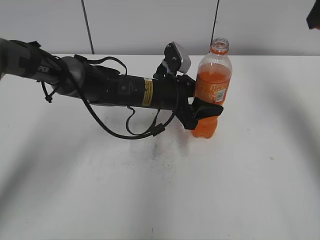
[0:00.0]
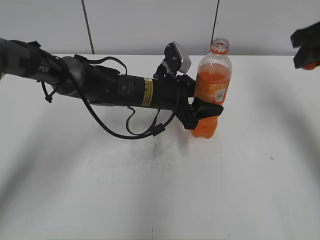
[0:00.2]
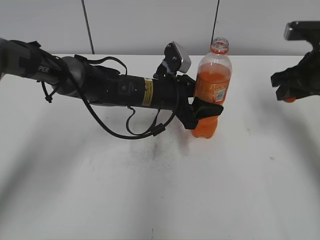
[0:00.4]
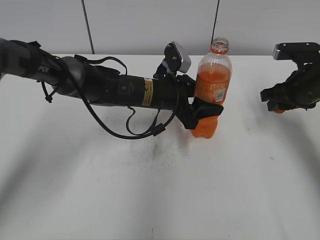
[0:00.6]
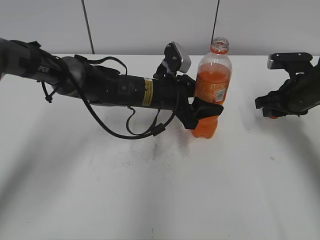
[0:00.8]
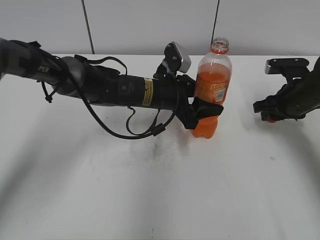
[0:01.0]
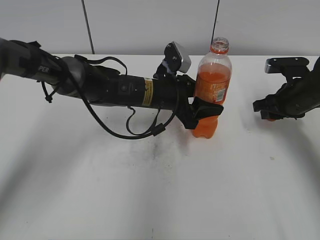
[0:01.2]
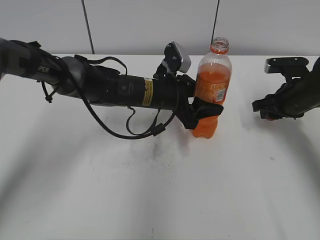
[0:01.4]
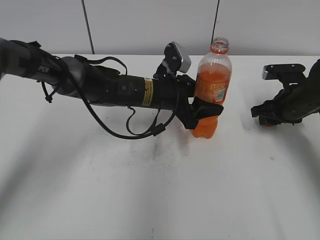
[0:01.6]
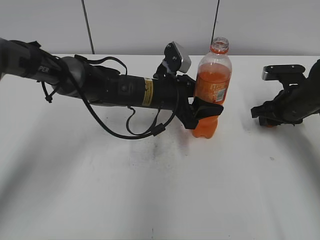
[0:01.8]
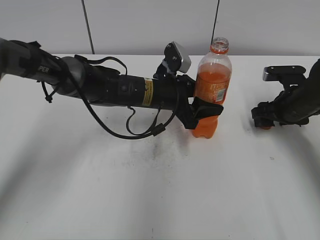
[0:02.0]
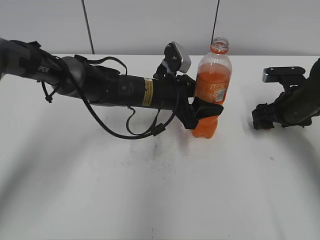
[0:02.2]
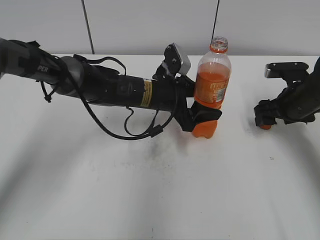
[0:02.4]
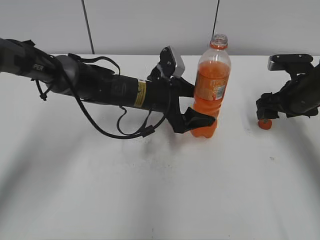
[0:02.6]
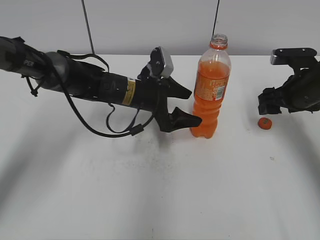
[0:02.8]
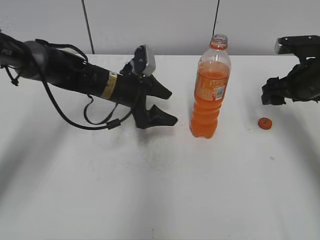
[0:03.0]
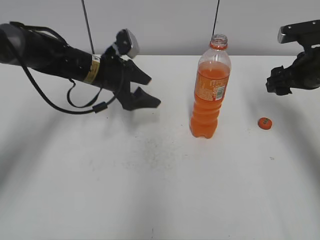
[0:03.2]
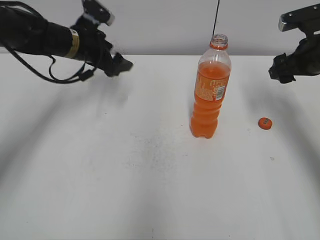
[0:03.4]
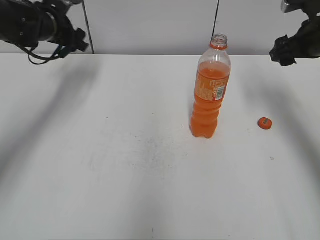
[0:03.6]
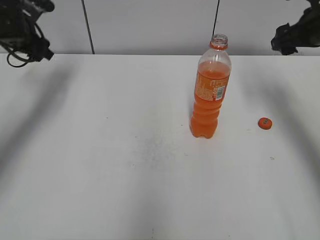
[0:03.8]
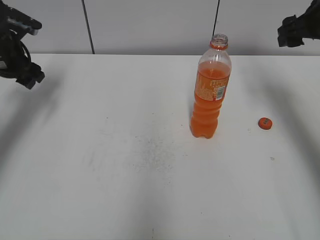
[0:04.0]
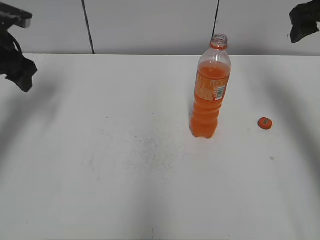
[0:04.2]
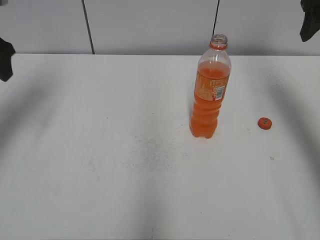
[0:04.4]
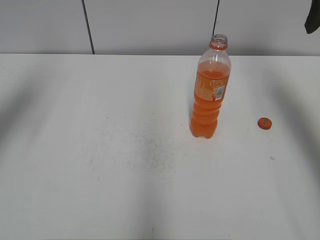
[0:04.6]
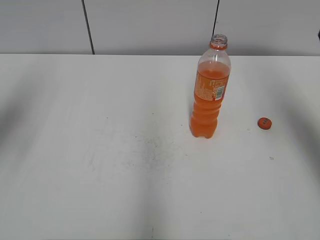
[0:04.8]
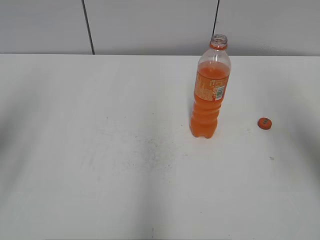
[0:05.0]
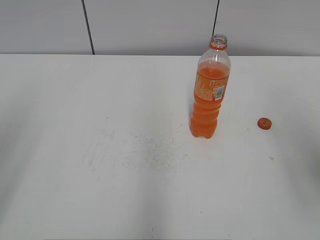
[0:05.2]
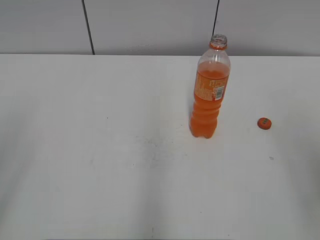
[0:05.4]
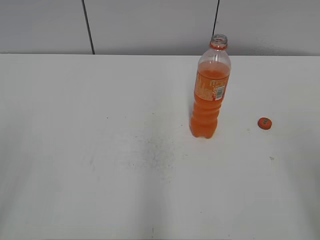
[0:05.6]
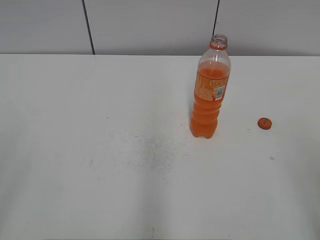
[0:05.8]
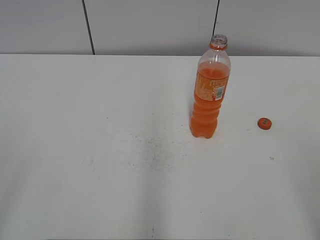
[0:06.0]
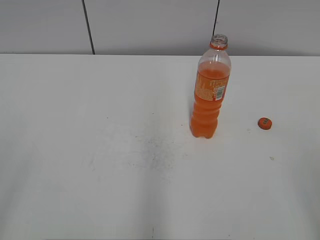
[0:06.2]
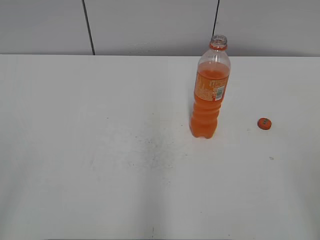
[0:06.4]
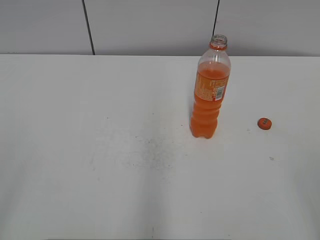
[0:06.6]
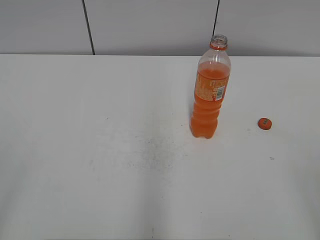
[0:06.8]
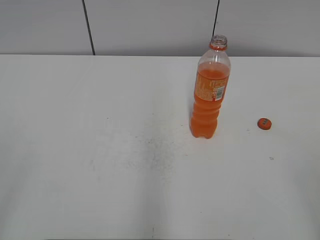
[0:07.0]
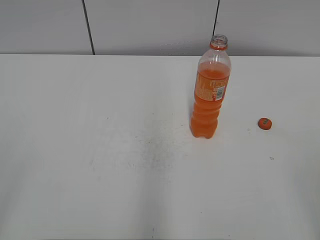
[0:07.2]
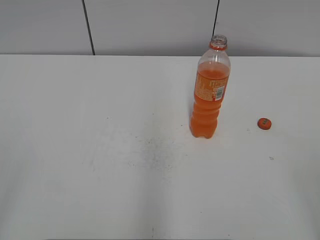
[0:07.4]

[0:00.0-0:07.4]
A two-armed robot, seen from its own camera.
Step, 0:00.0 to 0:02.0: Place the bottle cap on the right.
0:00.0 to 0:01.4: The right gripper moves downward, approximately 25 cm.
0:01.4 to 0:03.0: The right gripper opens. Meanwhile the left gripper shifts about 5 cm to the left, and opens its fingers.
0:03.0 to 0:04.4: The left gripper travels to the left and upward by about 30 cm. Meanwhile the right gripper travels upward by approximately 15 cm.
0:04.4 to 0:06.0: The grippers both shift backward by roughly 35 cm.

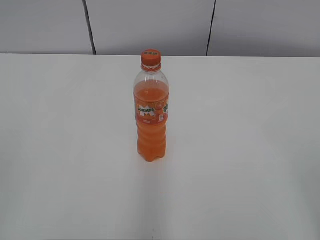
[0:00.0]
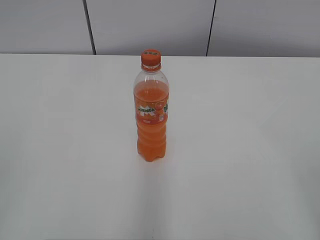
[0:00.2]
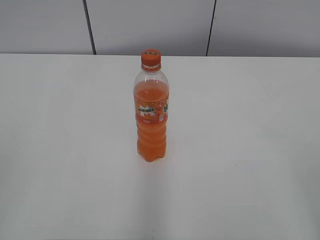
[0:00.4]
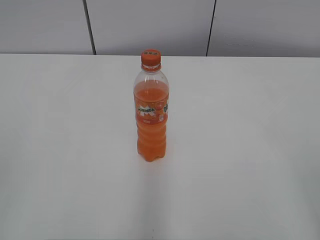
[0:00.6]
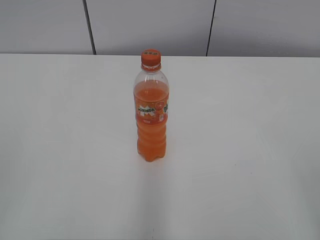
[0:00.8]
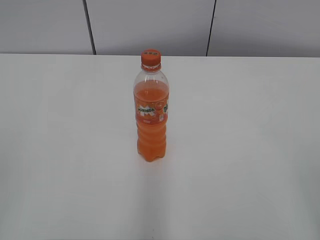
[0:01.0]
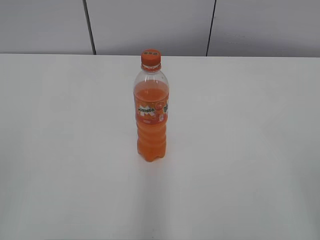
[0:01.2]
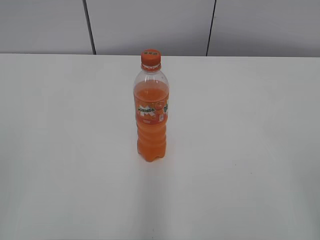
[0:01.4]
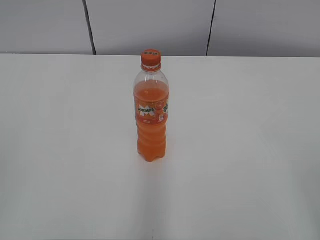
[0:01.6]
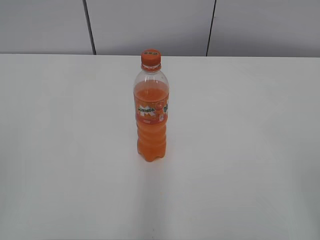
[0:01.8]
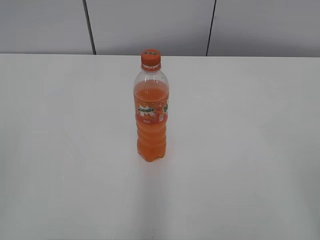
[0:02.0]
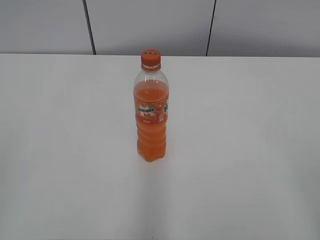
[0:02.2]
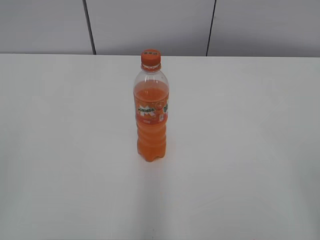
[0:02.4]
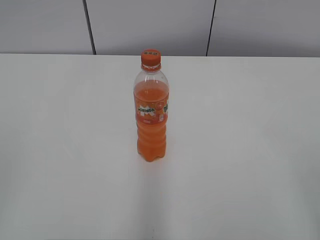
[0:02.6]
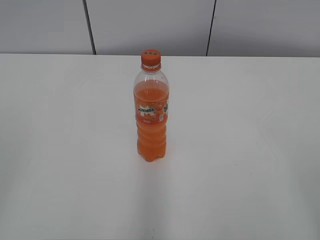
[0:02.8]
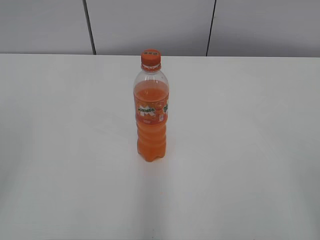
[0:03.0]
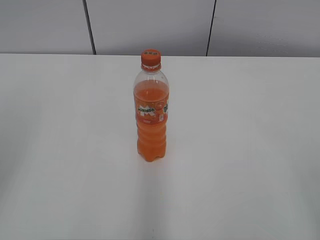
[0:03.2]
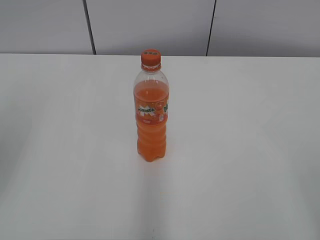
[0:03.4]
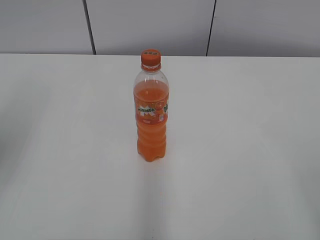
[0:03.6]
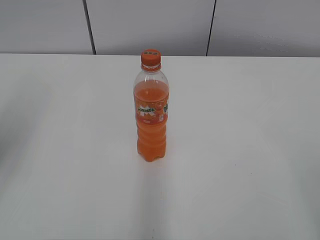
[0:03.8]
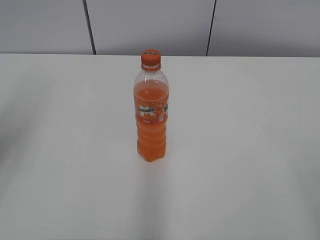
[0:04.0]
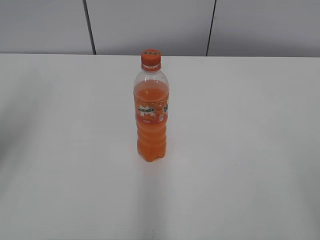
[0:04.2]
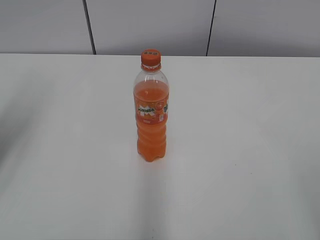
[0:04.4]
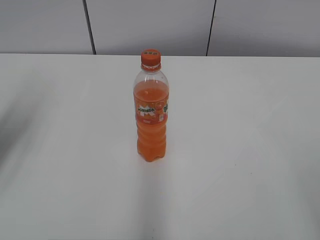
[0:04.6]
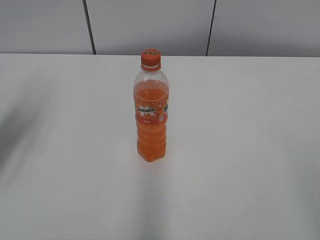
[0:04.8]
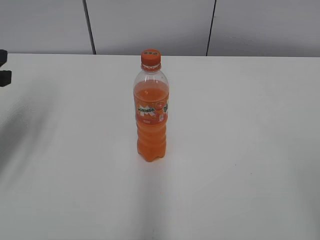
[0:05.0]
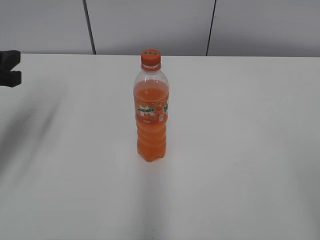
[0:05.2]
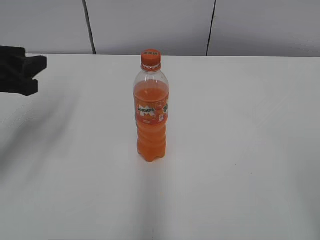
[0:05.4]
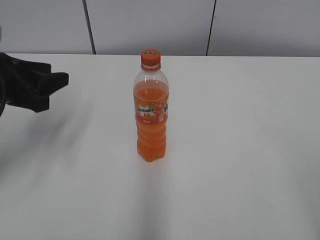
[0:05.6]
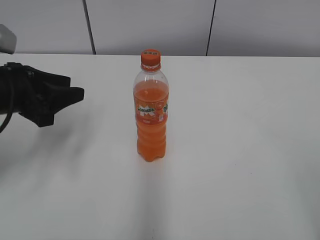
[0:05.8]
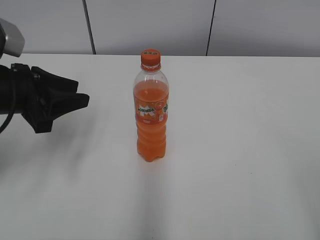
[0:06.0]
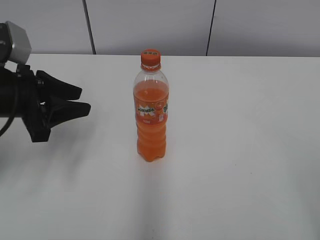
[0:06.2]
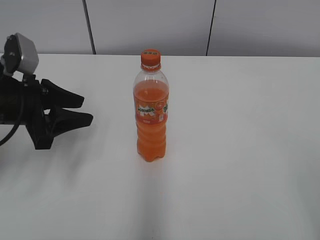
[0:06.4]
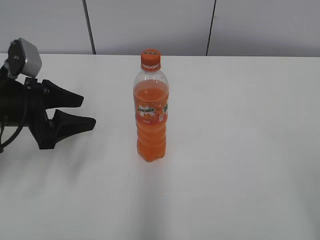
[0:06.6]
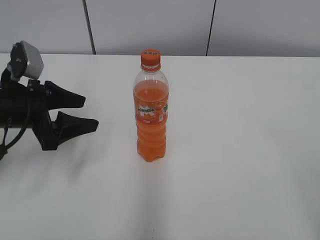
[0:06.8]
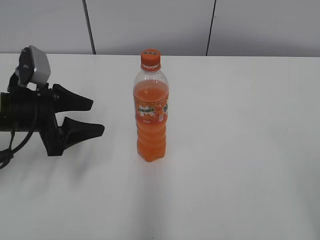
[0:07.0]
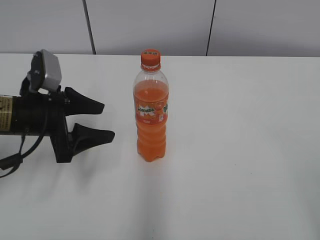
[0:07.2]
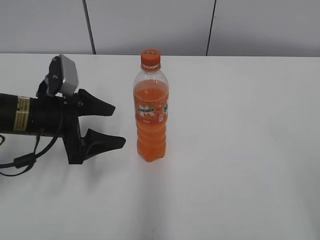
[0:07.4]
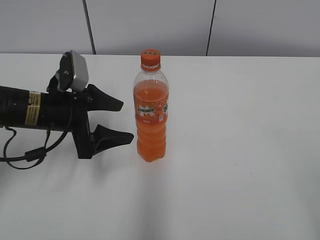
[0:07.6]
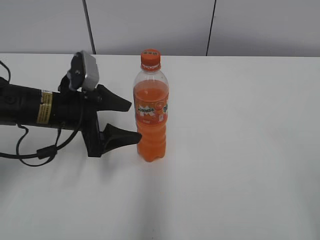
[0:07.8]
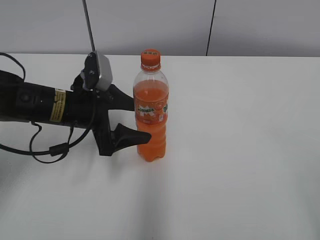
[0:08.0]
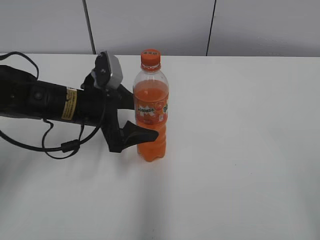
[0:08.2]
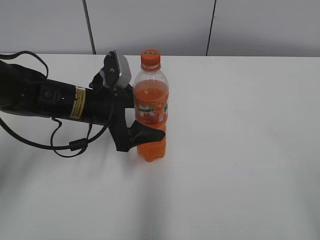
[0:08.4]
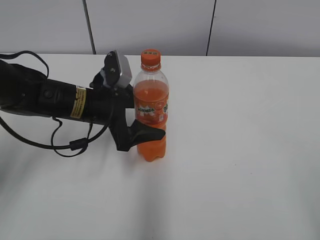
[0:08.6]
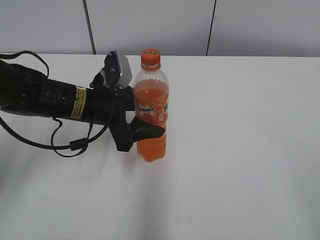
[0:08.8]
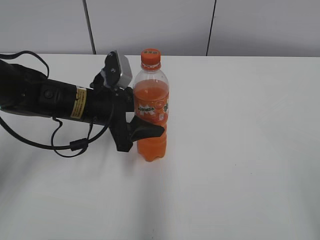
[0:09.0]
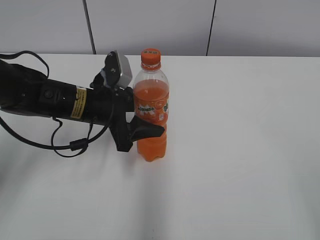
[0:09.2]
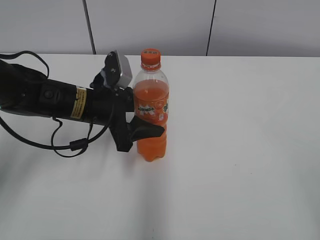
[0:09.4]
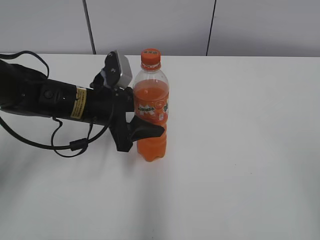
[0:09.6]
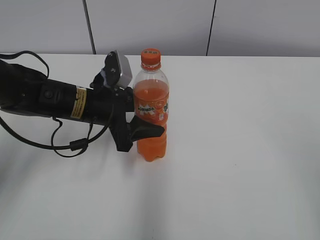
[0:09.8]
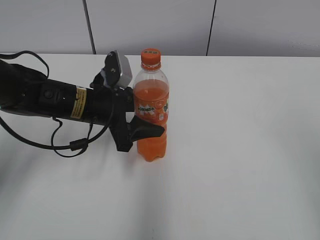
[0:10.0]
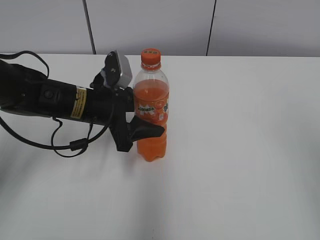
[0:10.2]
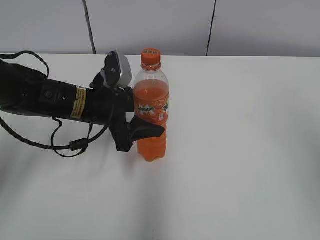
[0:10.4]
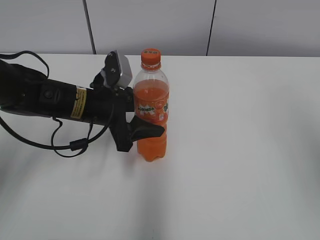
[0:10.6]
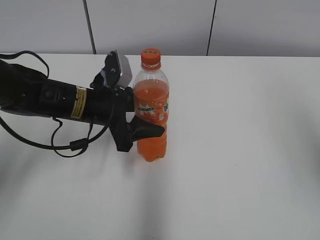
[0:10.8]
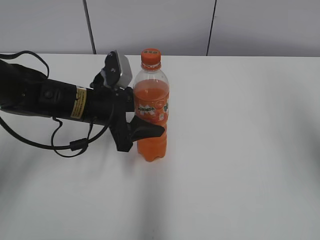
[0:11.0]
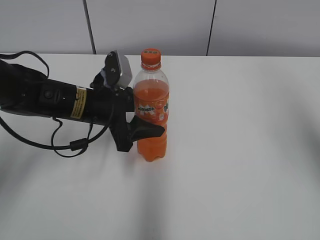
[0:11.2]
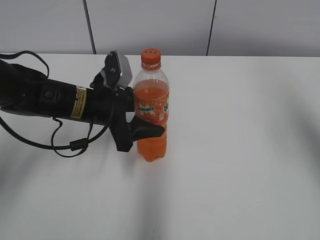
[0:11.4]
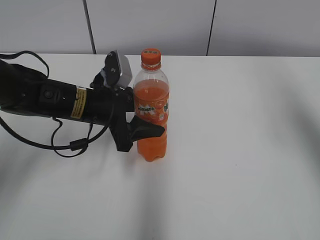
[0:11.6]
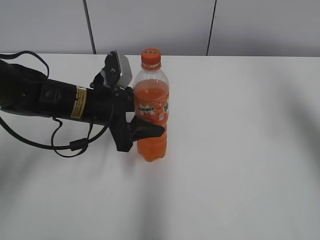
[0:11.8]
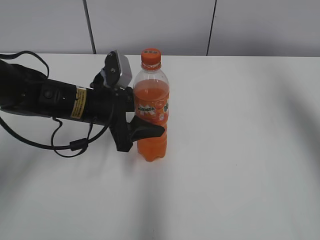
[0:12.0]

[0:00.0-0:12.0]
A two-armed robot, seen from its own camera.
Step, 0:00.0 to 0:09.0: Grab the Mirinda with the left hand.
0:03.0 to 0:04.4: The left gripper moves forward, about 15 cm.
0:04.4 to 0:06.0: The left gripper heads downward, to the right and forward, covering some 15 cm.
0:06.0 to 0:07.6: The left gripper is displaced to the right and downward by roughly 10 cm, and opens.
0:07.6 to 0:09.0: The left gripper is displaced to the right by roughly 5 cm, and closes up.
0:10.4 to 0:12.0: The right gripper moves forward, roughly 20 cm.

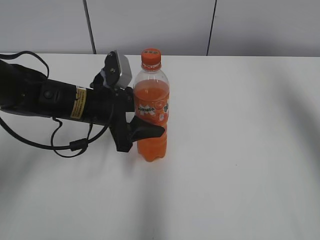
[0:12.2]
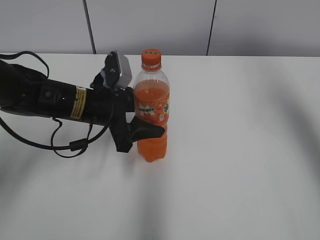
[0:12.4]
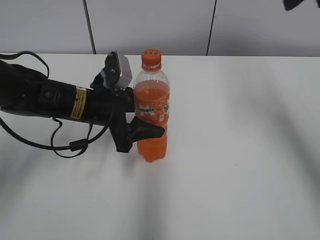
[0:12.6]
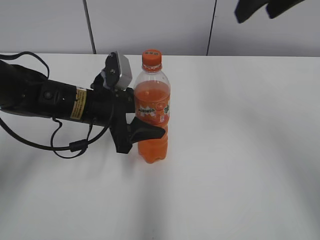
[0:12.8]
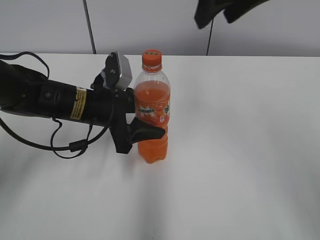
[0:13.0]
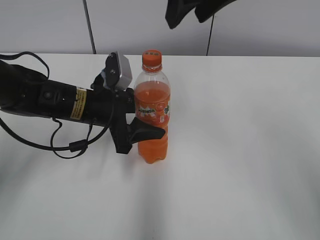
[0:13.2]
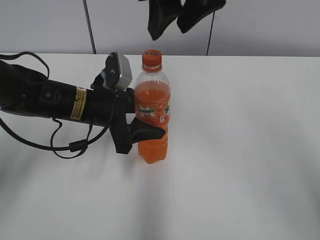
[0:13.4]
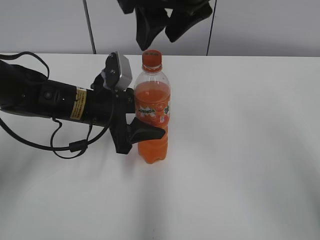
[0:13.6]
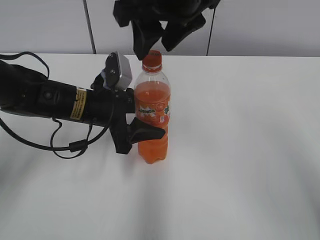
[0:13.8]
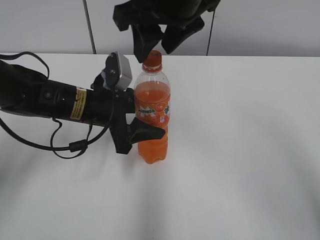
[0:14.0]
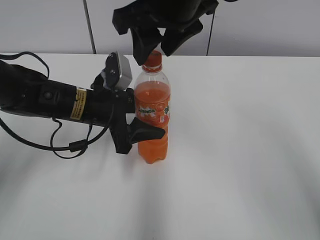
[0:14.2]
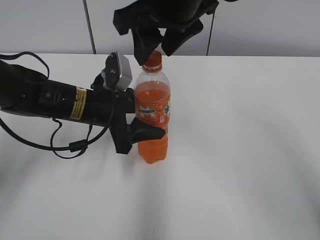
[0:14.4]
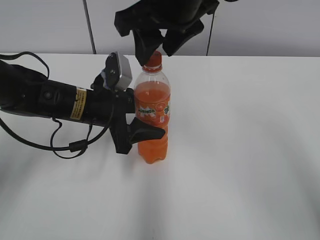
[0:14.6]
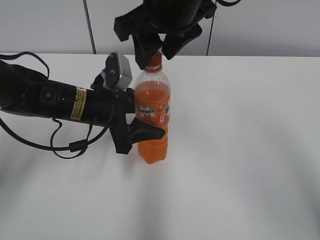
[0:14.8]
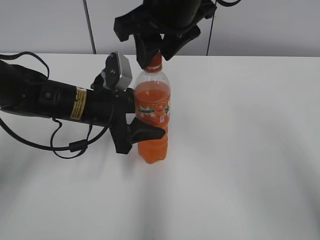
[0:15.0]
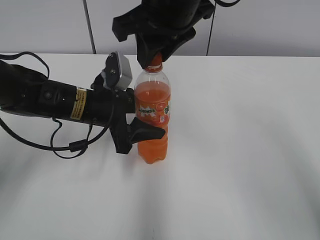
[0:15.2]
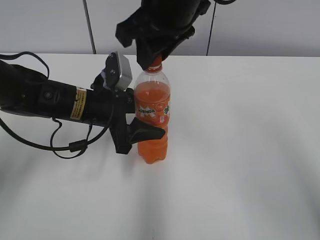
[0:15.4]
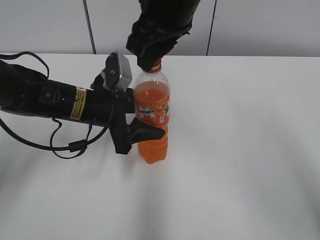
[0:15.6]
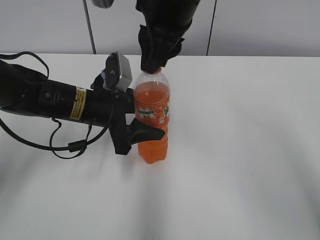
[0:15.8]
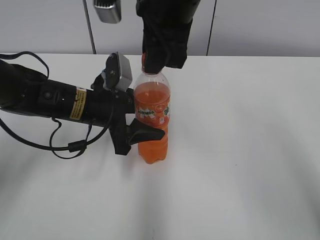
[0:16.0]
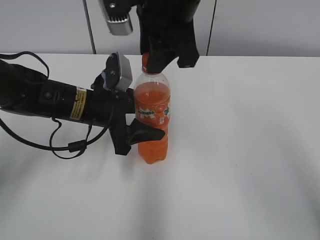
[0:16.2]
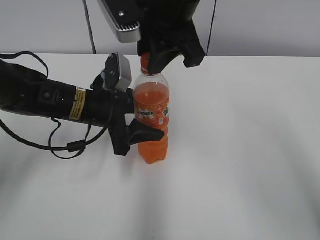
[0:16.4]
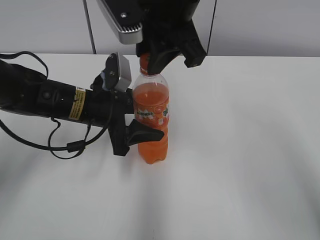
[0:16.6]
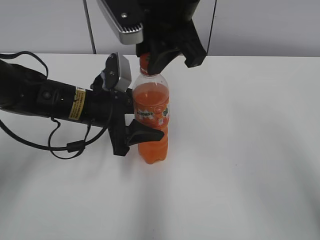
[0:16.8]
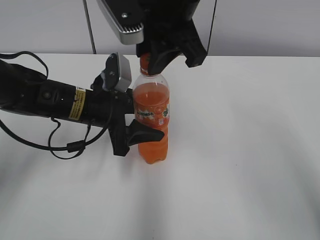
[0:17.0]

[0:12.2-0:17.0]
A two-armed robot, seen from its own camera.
0:12.2 to 0:13.8: The right gripper is displaced to the left by some 25 cm.
0:13.8 to 0:15.4: The right gripper closes up.
